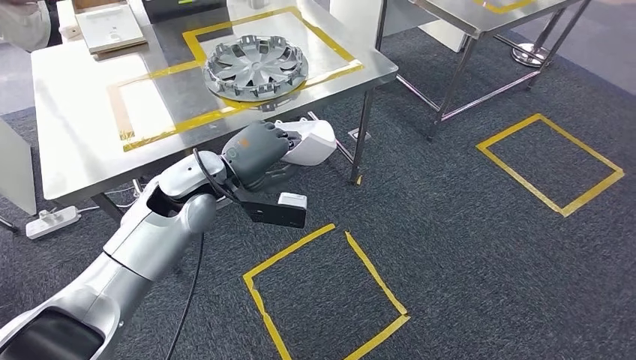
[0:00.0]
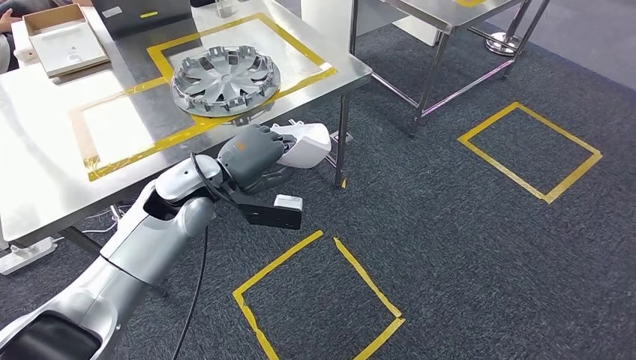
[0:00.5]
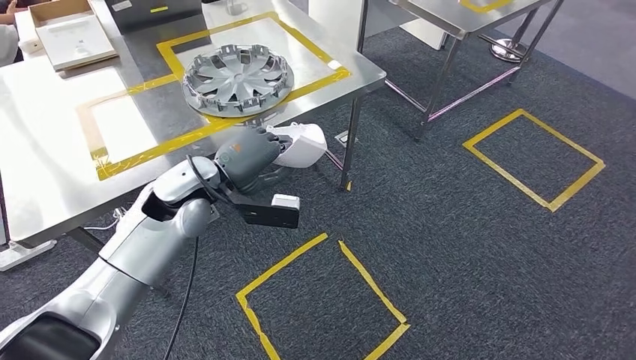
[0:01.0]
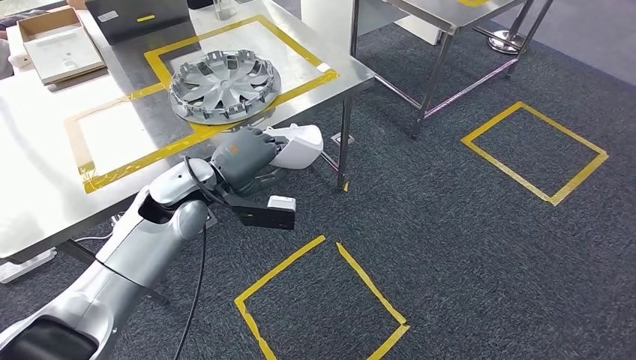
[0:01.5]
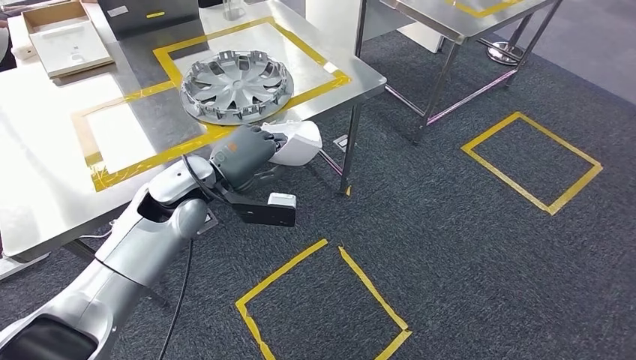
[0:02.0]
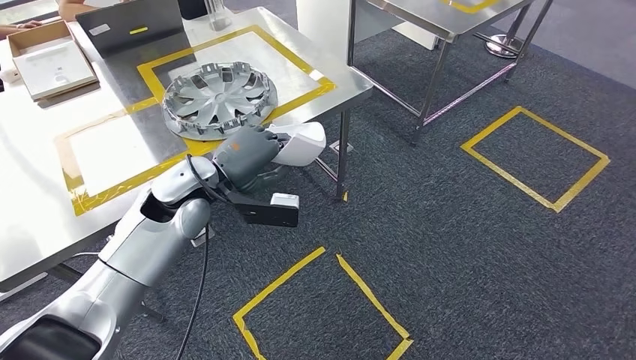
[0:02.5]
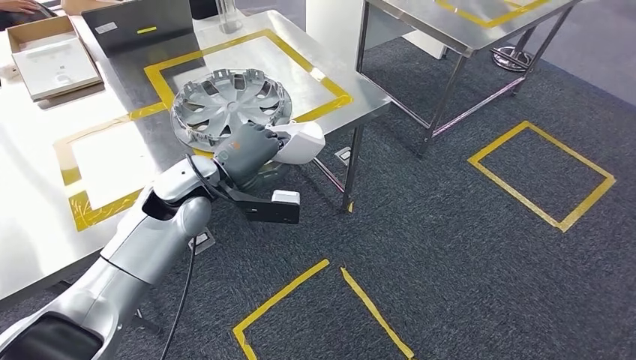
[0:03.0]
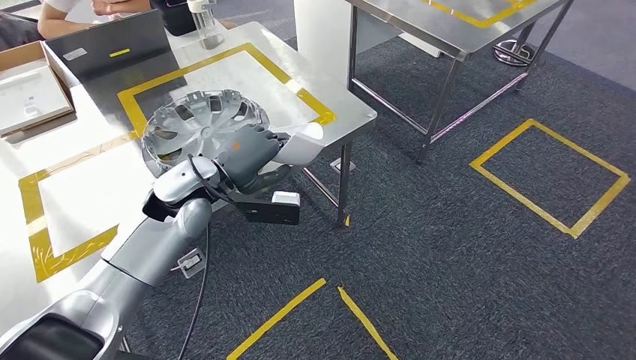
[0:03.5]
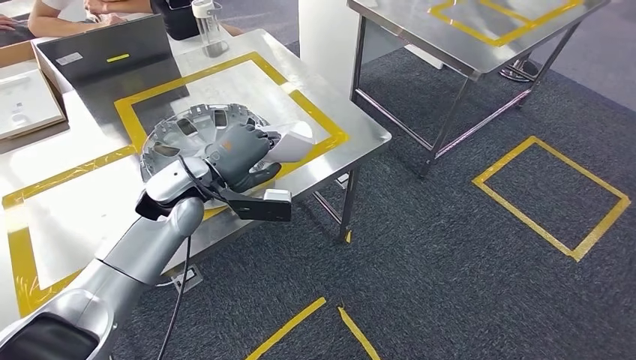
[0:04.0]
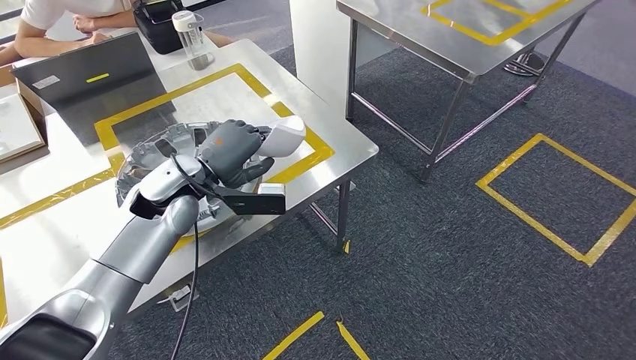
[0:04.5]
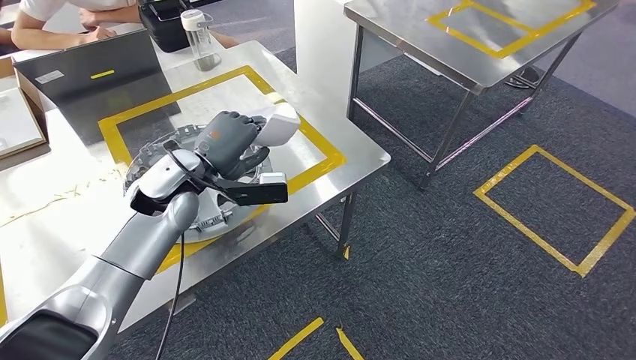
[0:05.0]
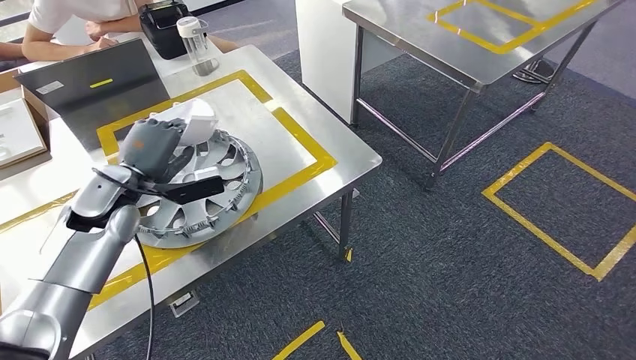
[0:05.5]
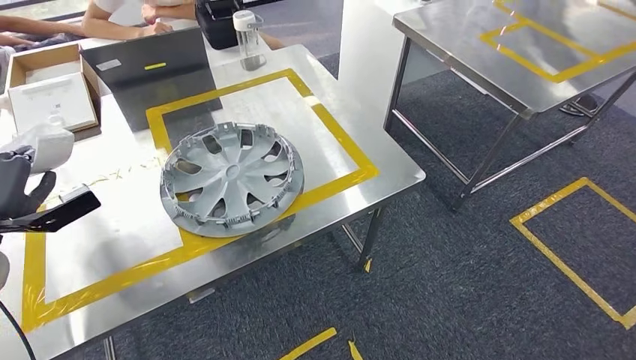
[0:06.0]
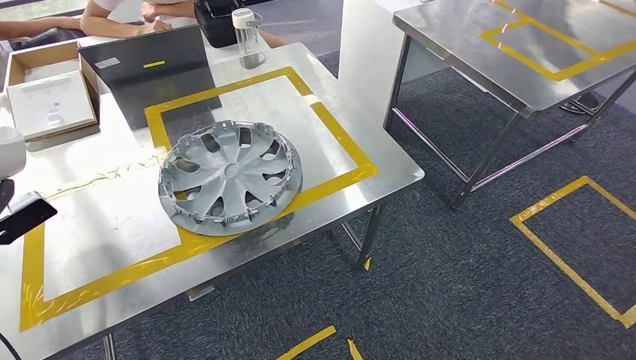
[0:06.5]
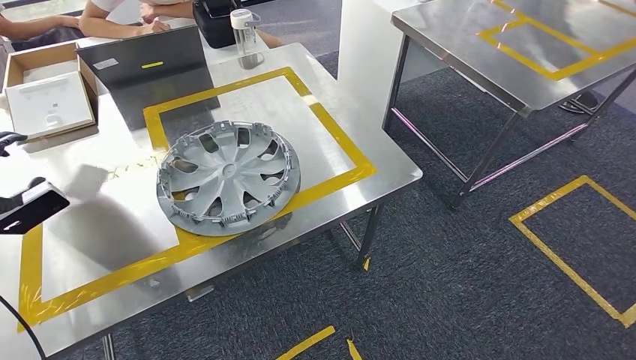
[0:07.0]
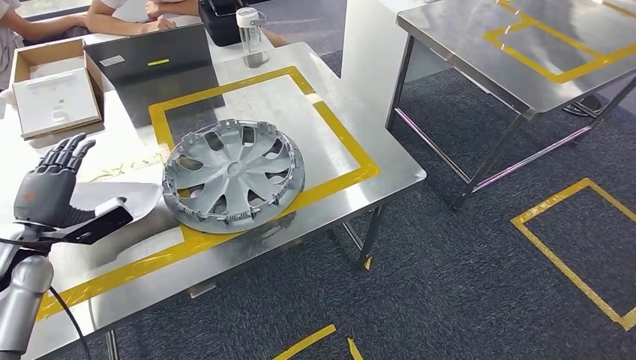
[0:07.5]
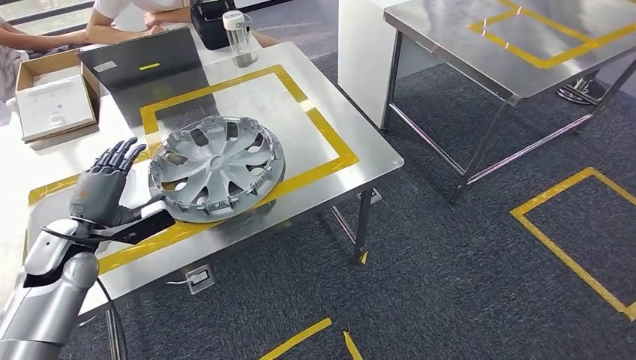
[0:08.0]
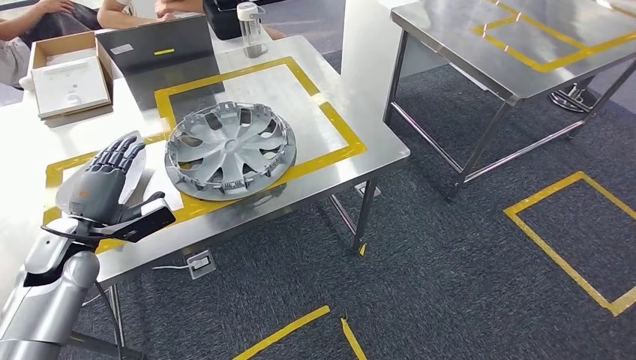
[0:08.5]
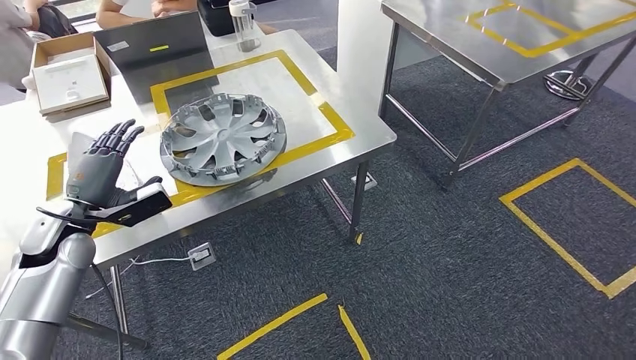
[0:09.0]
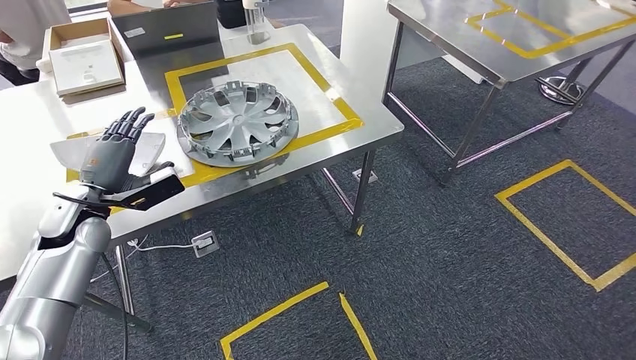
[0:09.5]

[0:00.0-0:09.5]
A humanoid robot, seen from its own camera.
Step, 0:00.0 to 0:04.5: Move the small component to the workbench.
Step, 0:05.0 to 0:09.0: Insert the small component into the corresponding slot on the workbench.

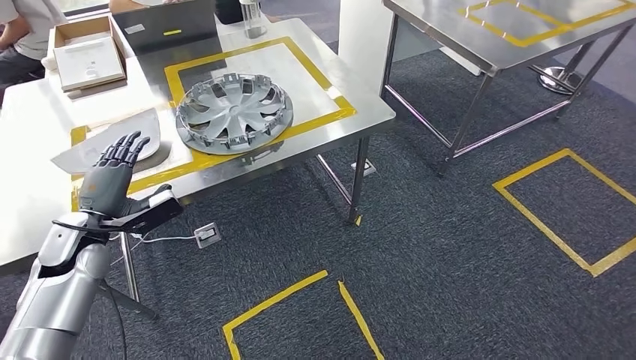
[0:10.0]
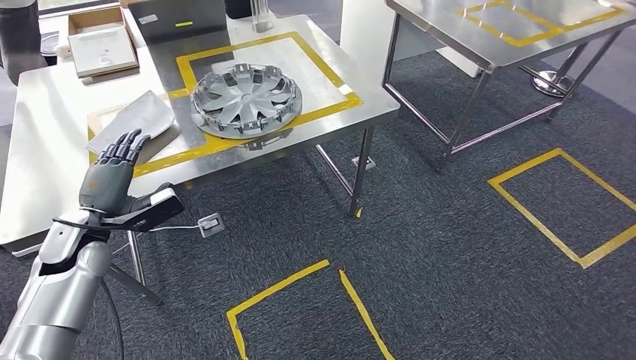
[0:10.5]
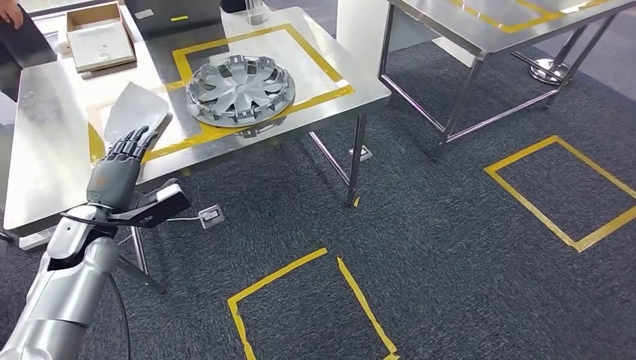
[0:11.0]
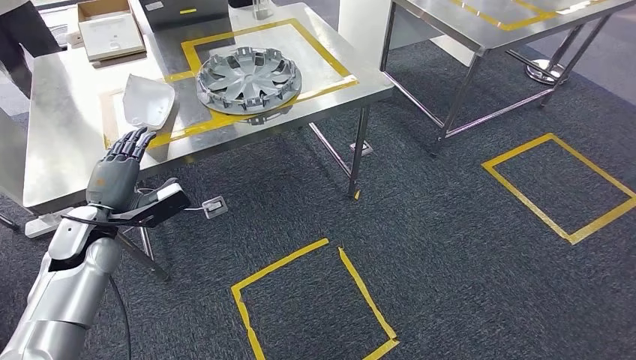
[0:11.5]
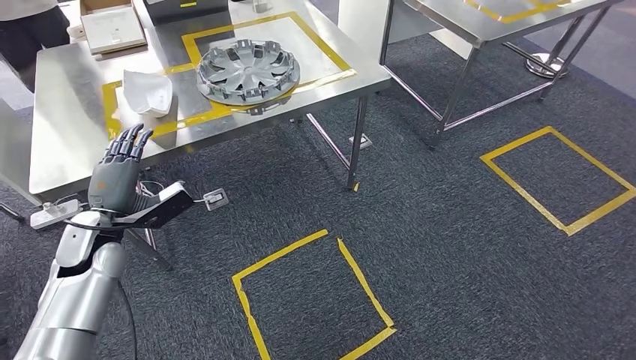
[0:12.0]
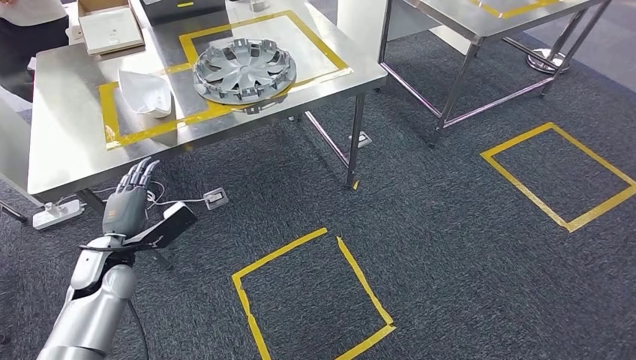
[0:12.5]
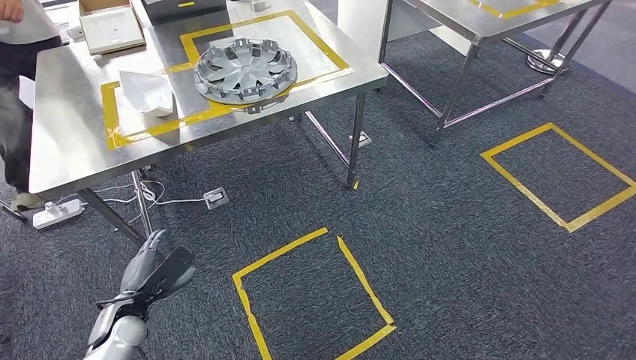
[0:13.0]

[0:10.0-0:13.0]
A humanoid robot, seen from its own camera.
Step, 0:10.0 to 0:13.0: Return to the initial position at the workbench.
